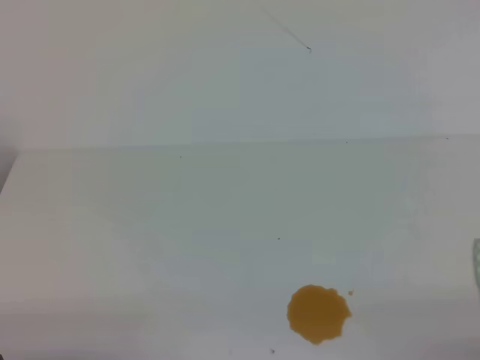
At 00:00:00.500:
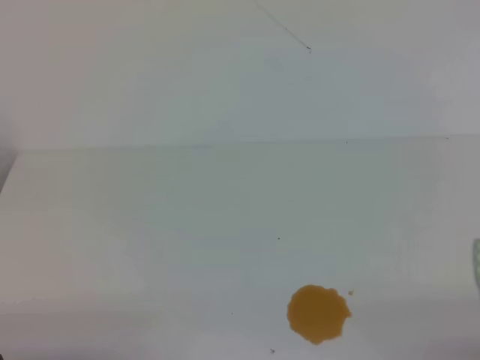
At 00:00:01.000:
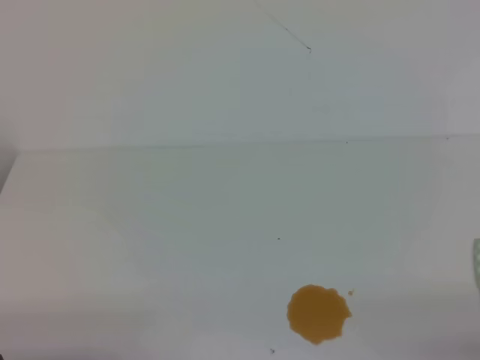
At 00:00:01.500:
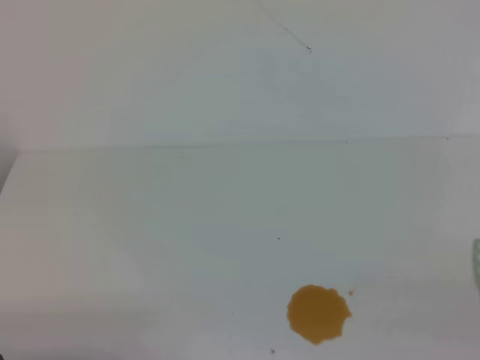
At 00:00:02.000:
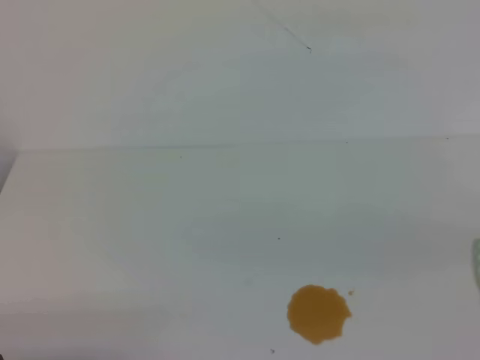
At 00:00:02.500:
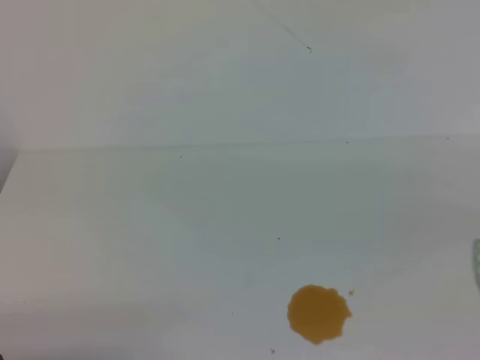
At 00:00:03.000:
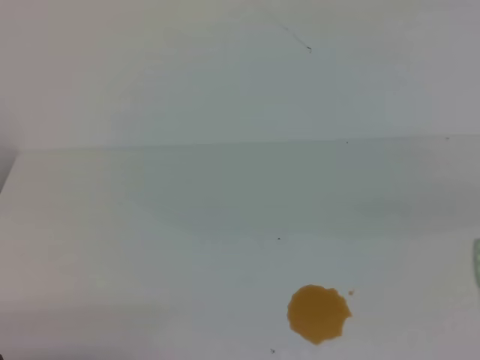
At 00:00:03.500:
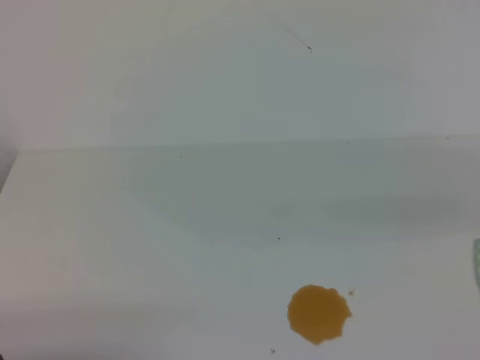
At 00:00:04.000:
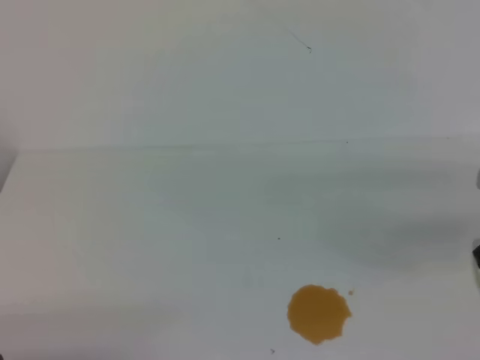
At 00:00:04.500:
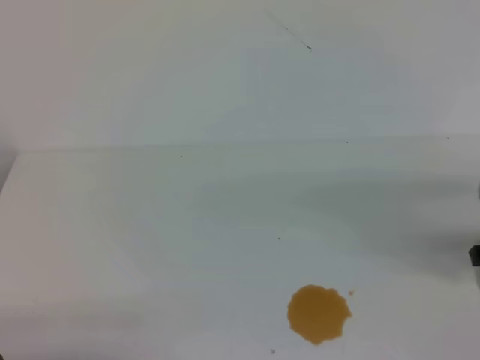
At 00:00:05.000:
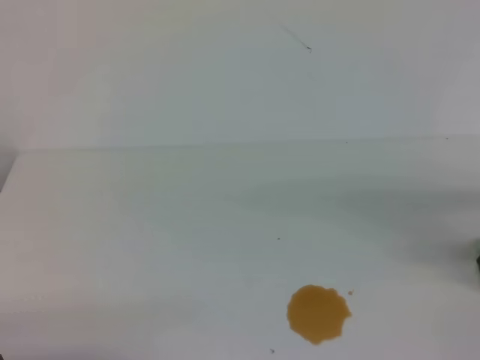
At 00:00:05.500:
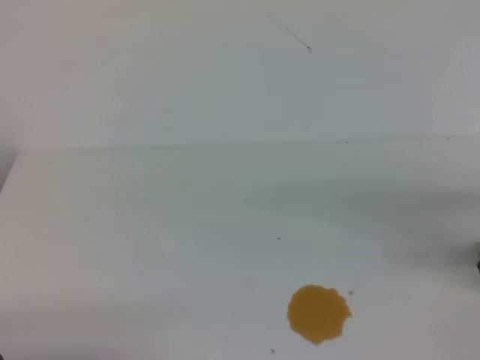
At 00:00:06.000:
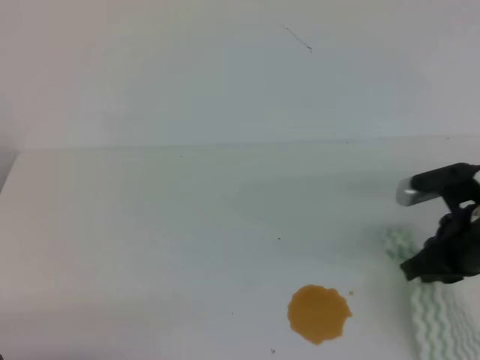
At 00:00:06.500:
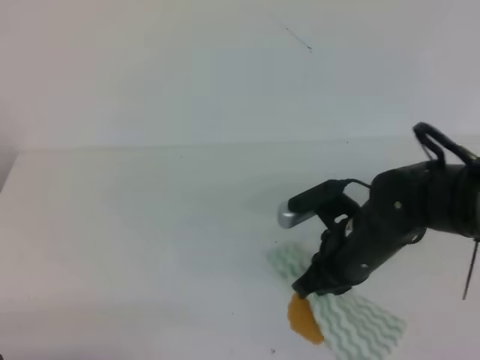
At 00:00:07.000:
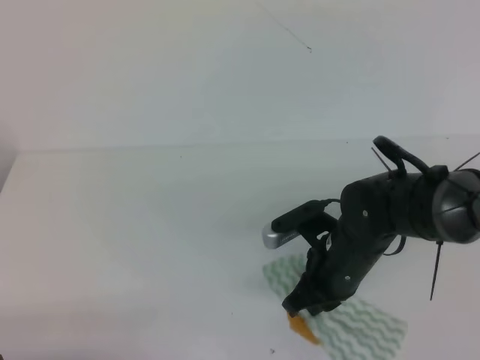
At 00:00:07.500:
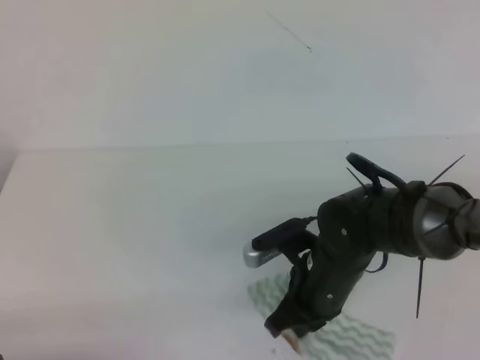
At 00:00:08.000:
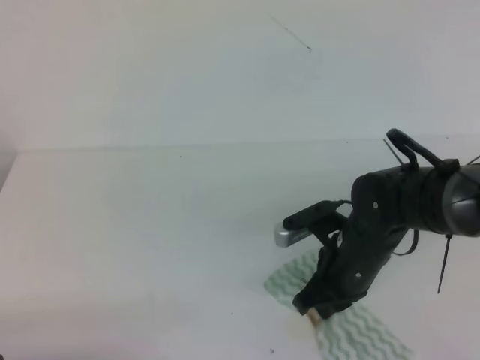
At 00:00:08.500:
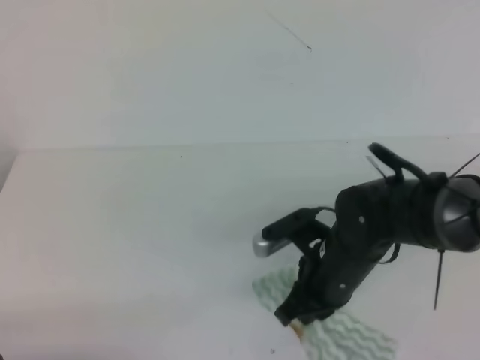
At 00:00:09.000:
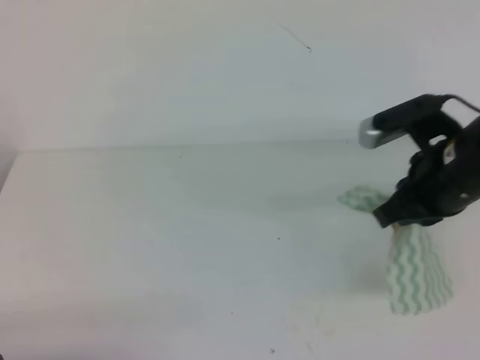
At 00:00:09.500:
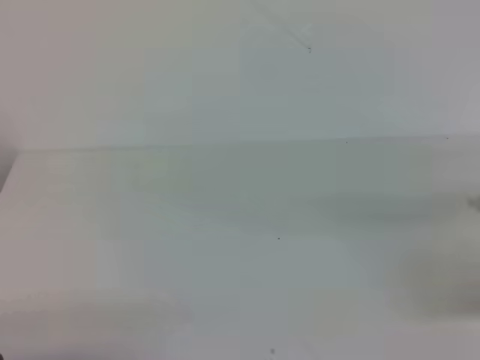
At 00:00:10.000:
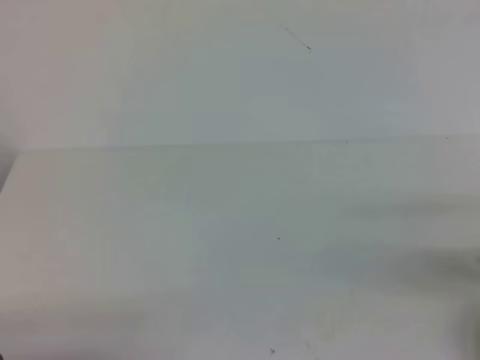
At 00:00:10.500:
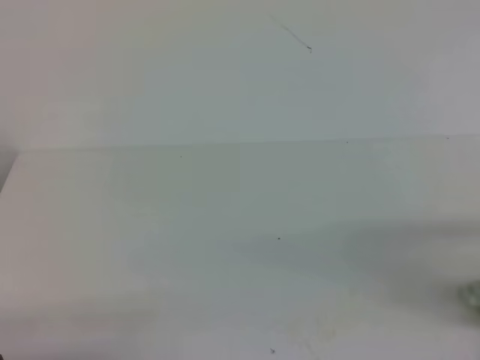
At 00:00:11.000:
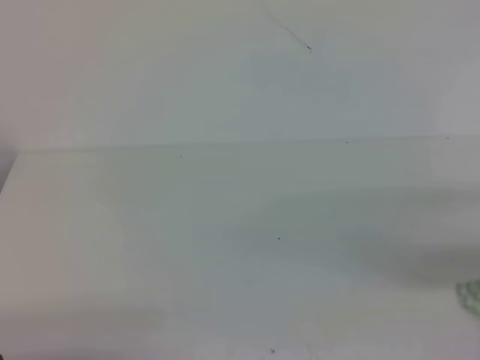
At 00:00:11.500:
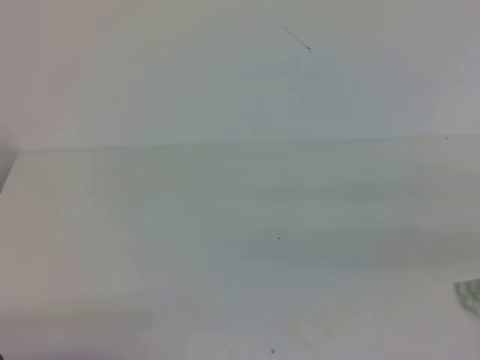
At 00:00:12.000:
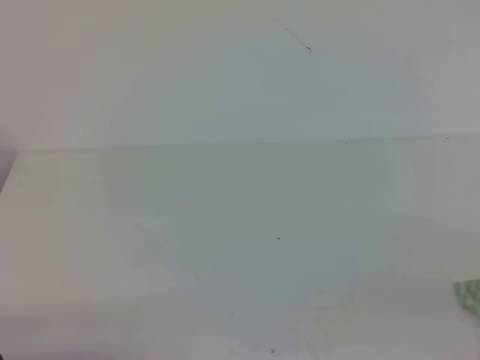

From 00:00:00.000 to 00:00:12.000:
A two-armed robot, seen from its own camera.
From 00:00:04.000 to 00:00:06.000: The right gripper moves to the left, about 5 cm, reaches some 10 cm downward, then returns, and closes its fingers.
From 00:00:06.000 to 00:00:08.000: The right gripper shifts some 15 cm to the left and downward.
From 00:00:08.000 to 00:00:10.000: The right gripper travels to the right by approximately 20 cm.
From 00:00:10.000 to 00:00:12.000: The right gripper shifts approximately 15 cm backward and upward, and opens and closes again.

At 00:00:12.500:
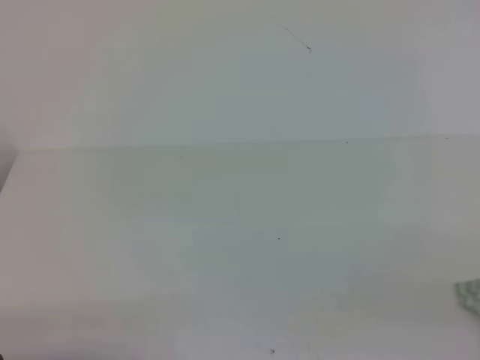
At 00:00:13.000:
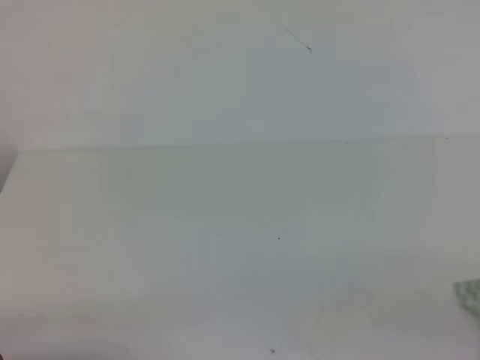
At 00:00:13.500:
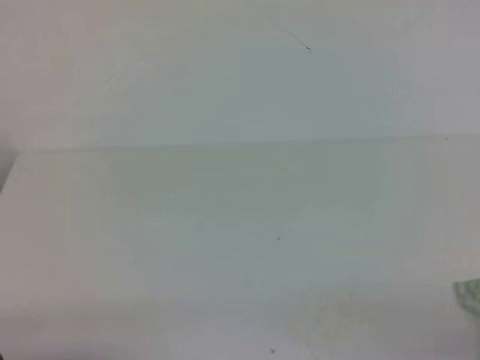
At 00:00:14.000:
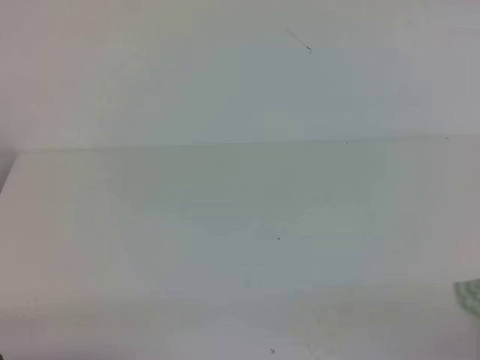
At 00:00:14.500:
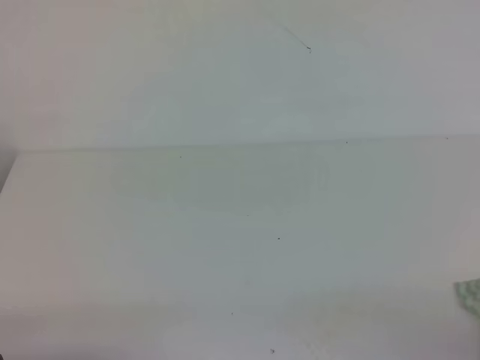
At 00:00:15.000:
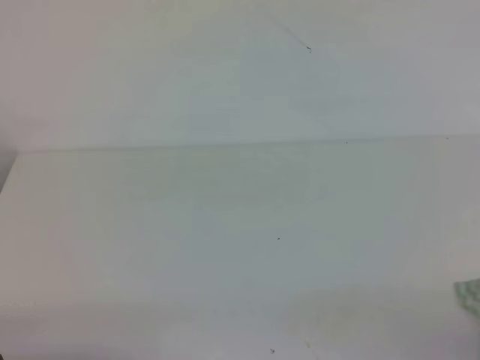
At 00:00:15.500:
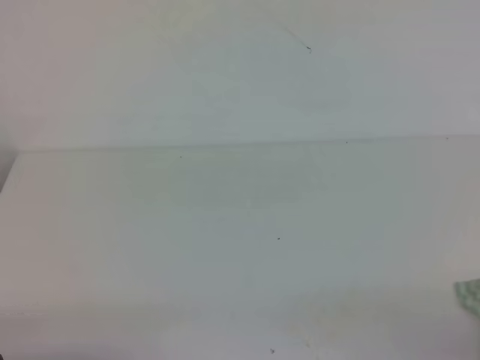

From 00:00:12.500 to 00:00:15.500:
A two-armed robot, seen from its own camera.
From 00:00:14.000 to 00:00:15.500: Both grippers stay put.

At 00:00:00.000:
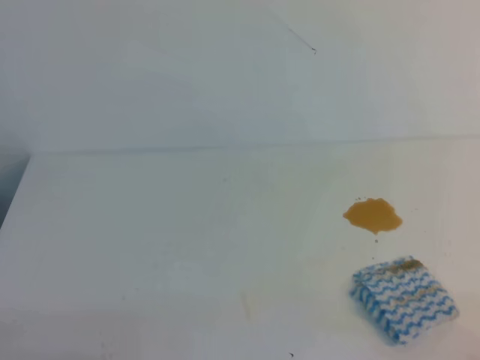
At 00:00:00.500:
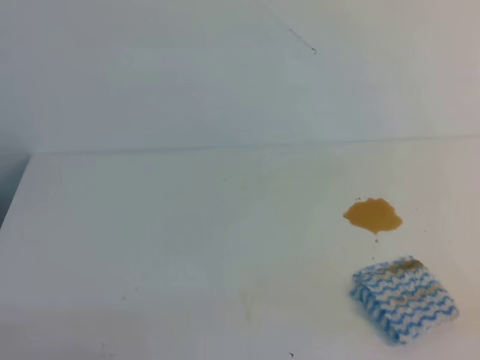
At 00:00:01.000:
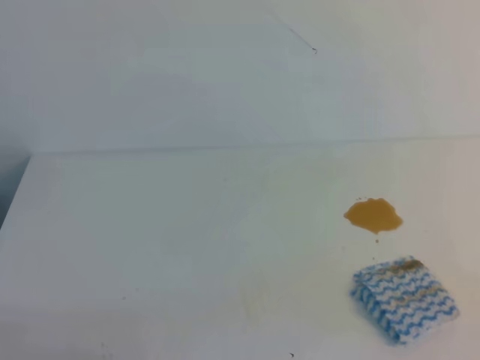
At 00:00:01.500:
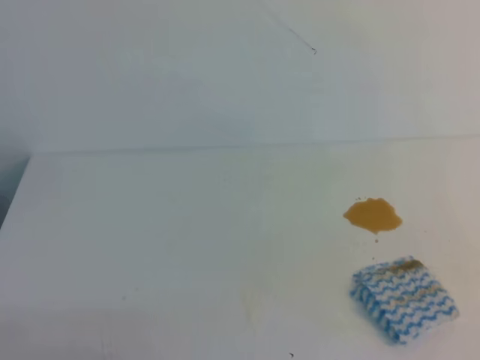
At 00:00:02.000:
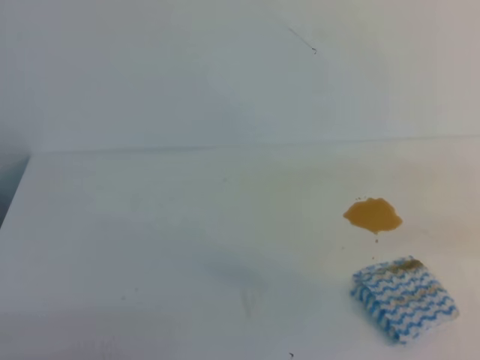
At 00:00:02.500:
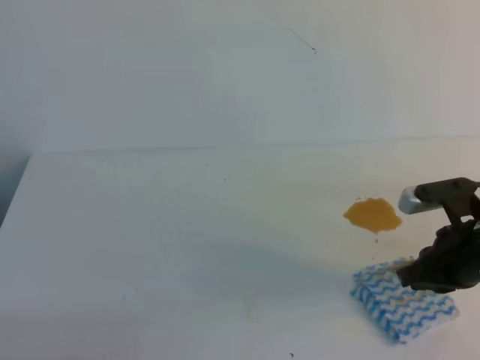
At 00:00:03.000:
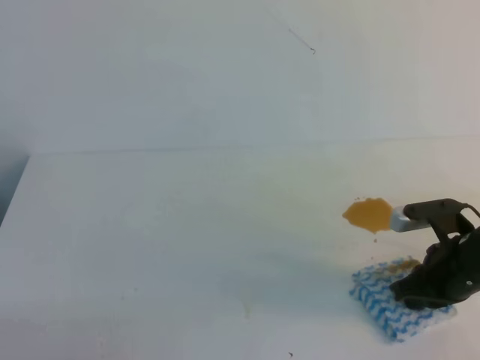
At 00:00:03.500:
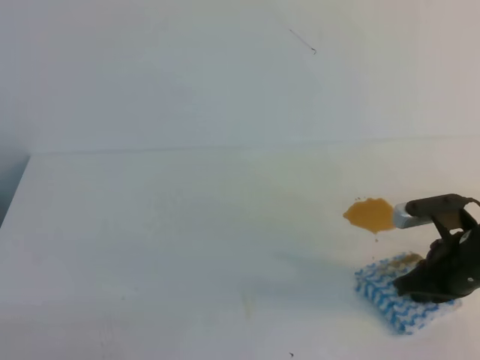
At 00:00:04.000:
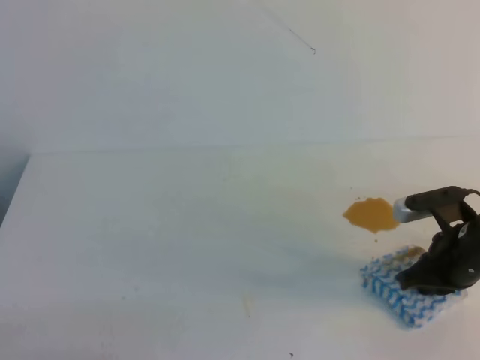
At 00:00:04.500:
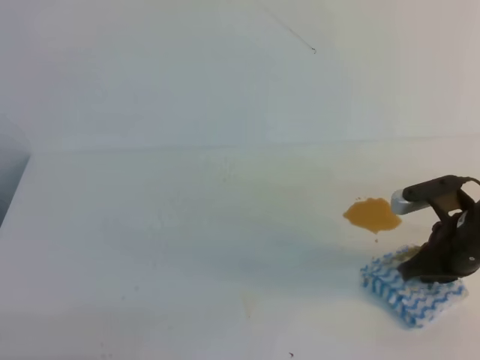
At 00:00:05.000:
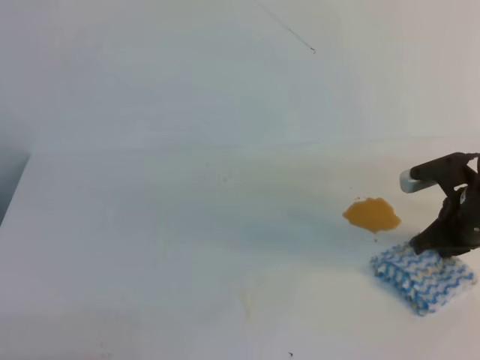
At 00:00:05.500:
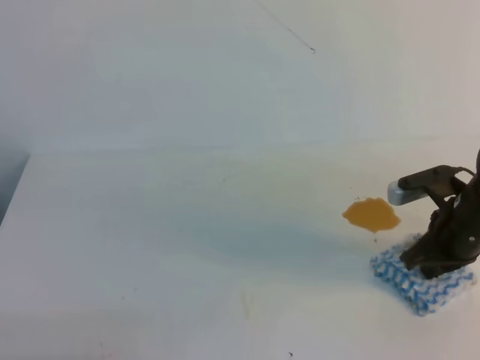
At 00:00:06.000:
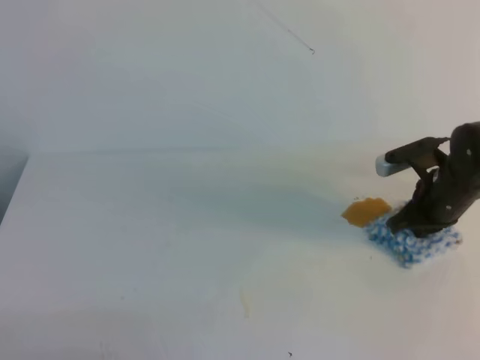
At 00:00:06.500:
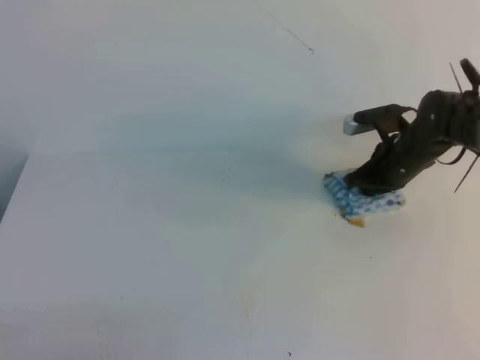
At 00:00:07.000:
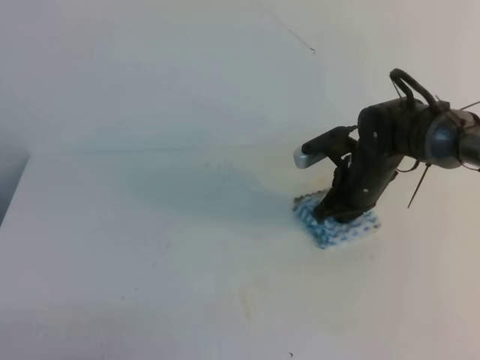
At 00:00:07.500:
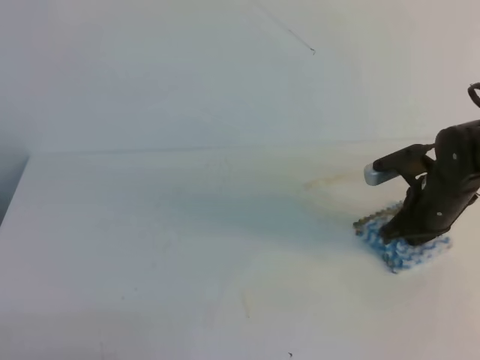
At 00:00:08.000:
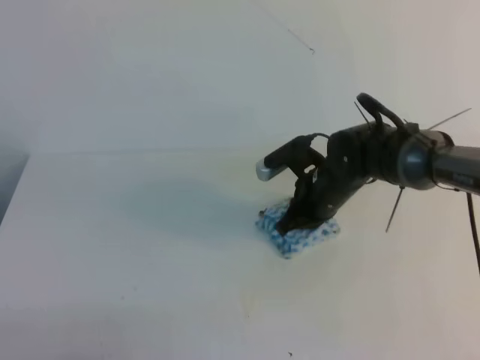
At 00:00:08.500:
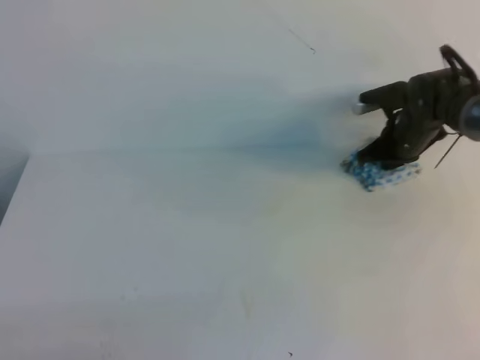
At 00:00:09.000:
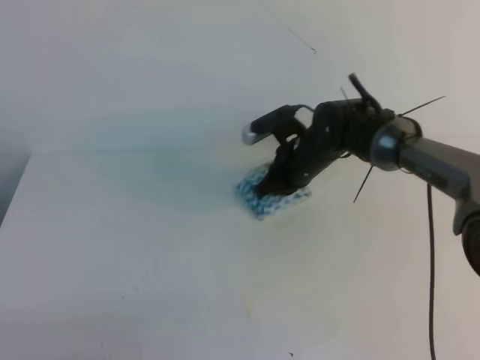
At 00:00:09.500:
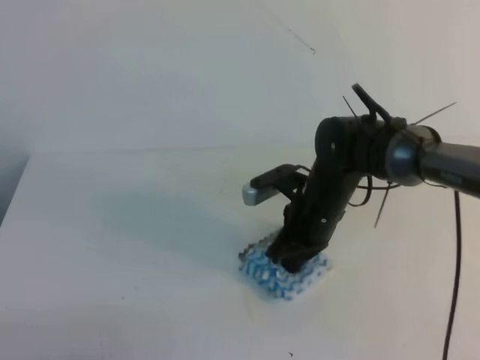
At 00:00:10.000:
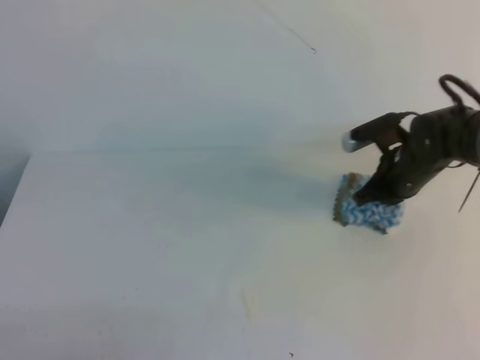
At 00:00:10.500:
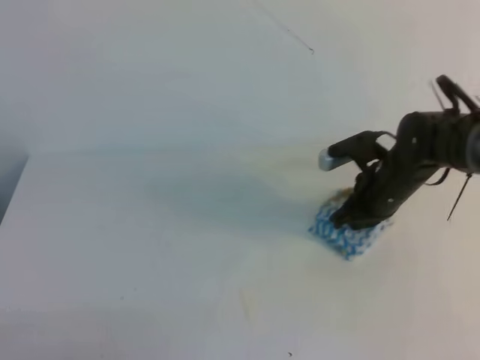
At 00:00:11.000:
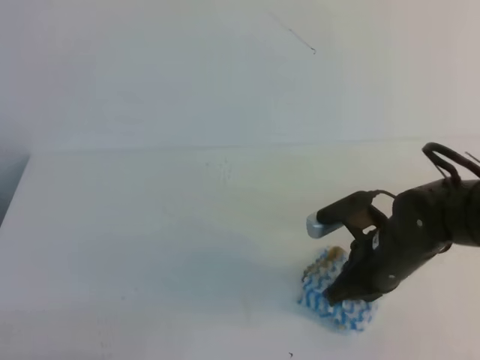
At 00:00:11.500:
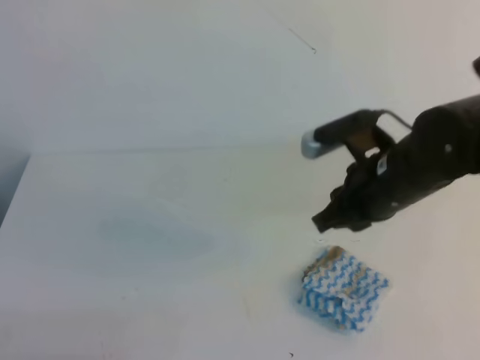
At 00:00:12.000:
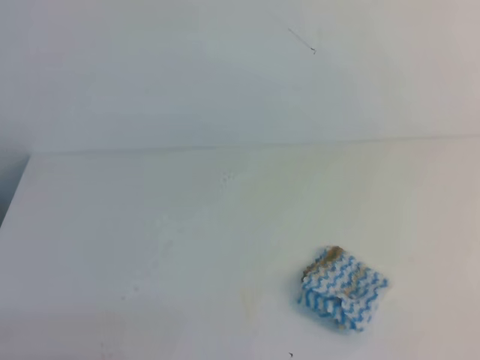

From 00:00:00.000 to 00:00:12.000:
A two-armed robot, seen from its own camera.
From 00:00:02.000 to 00:00:04.000: The right gripper travels downward, forward and to the left by about 15 cm.
From 00:00:04.000 to 00:00:06.000: The right gripper shifts some 10 cm forward.
From 00:00:06.000 to 00:00:08.000: The right gripper moves left and right over approximately 15 cm, changing direction 2 times.
From 00:00:08.000 to 00:00:10.000: The right gripper goes left and right, about 10 cm each way, reversing 2 times.
From 00:00:10.000 to 00:00:12.000: The right gripper is displaced upward and backward by approximately 40 cm, and opens up.
